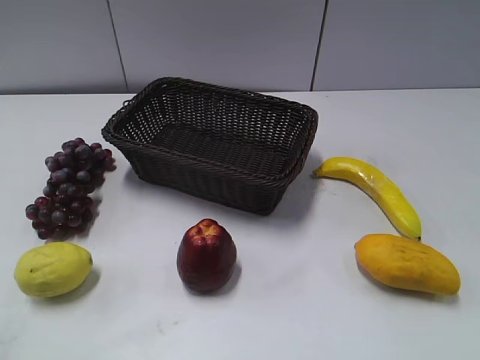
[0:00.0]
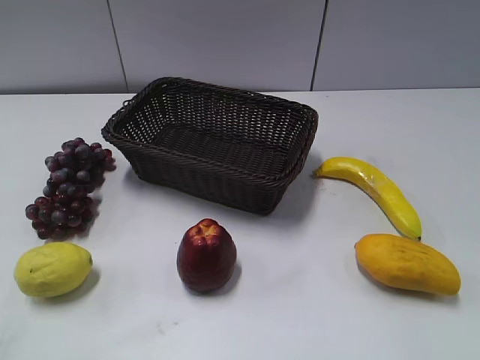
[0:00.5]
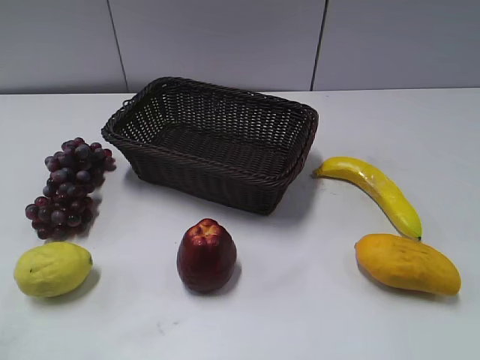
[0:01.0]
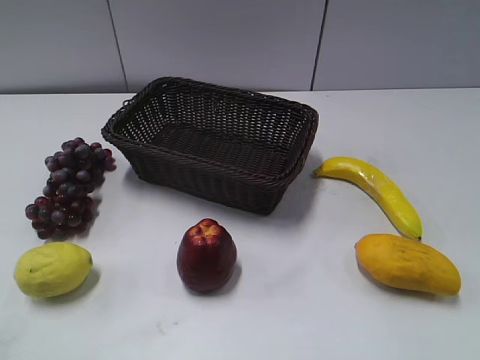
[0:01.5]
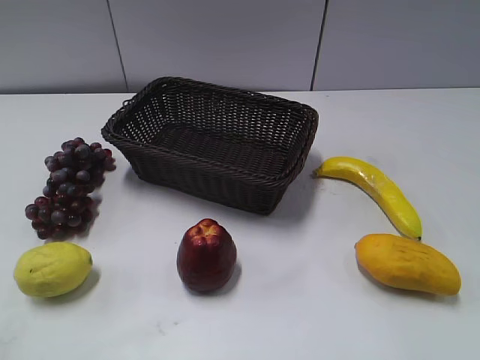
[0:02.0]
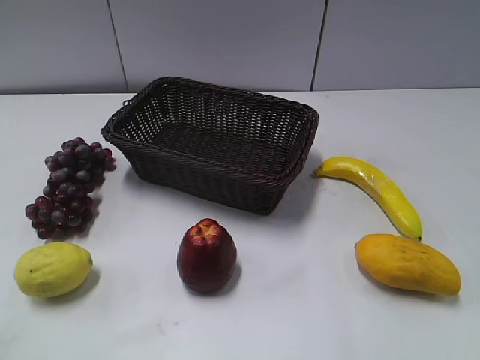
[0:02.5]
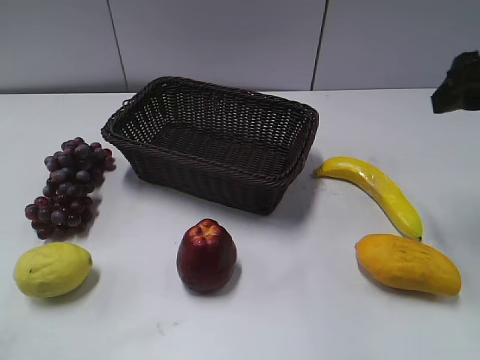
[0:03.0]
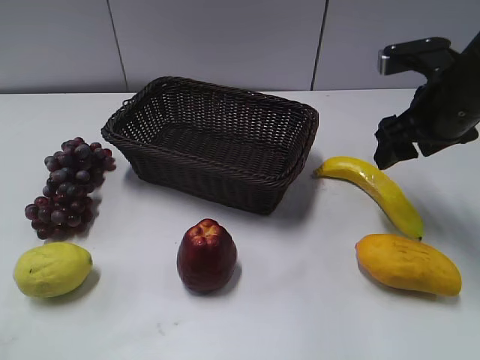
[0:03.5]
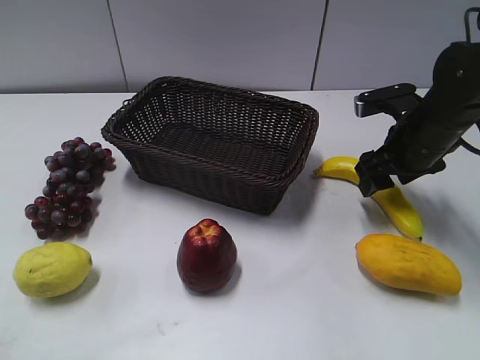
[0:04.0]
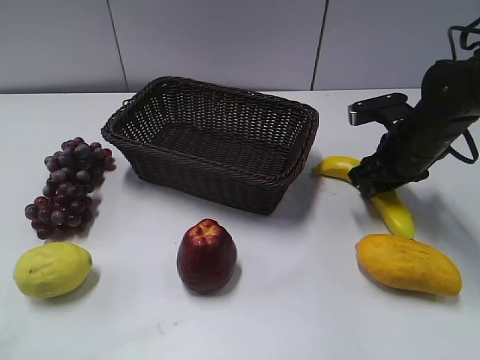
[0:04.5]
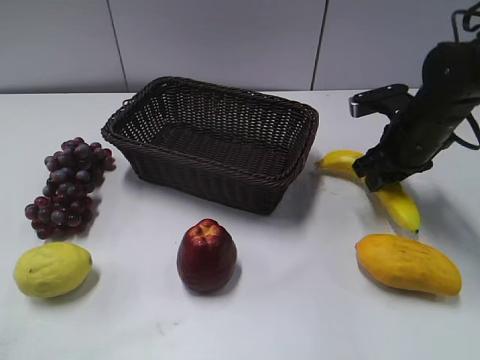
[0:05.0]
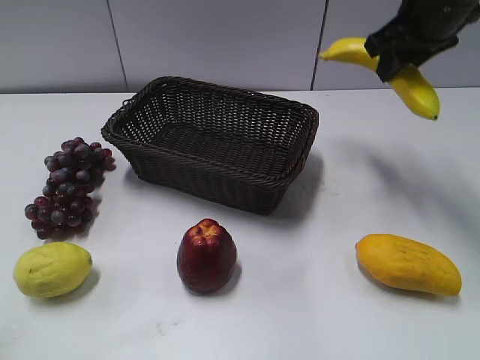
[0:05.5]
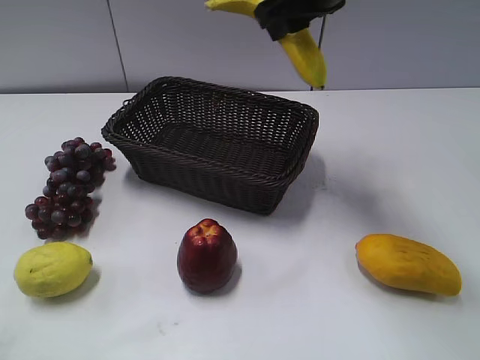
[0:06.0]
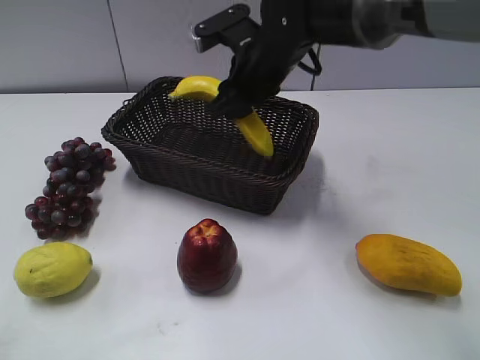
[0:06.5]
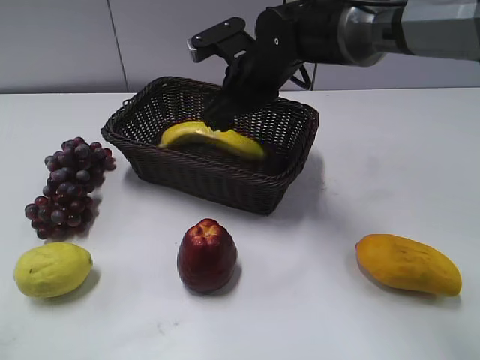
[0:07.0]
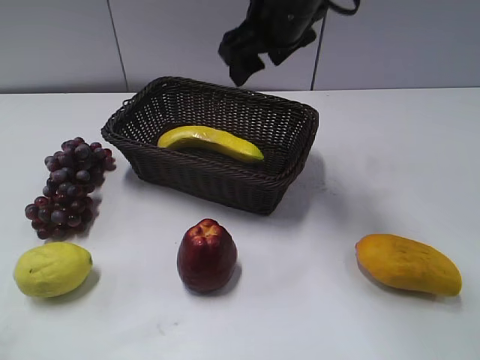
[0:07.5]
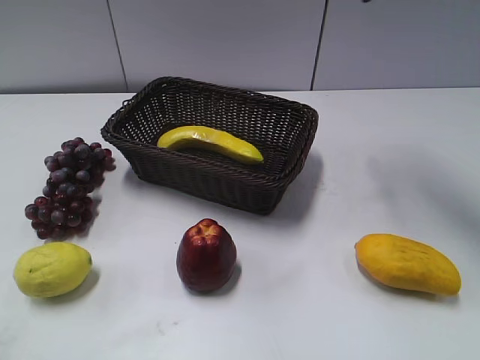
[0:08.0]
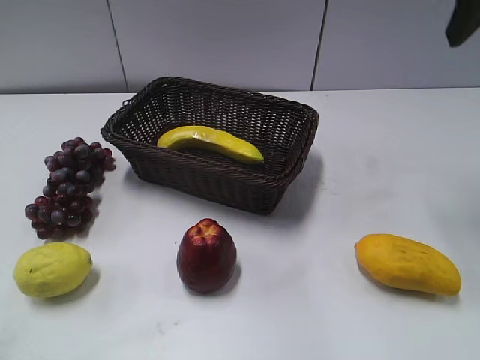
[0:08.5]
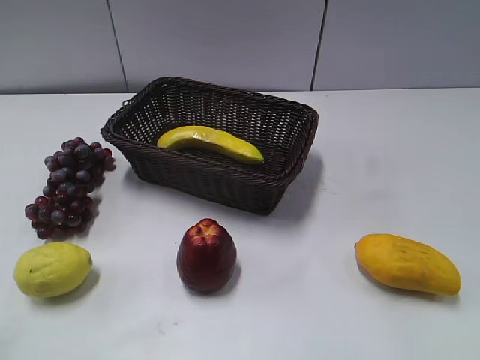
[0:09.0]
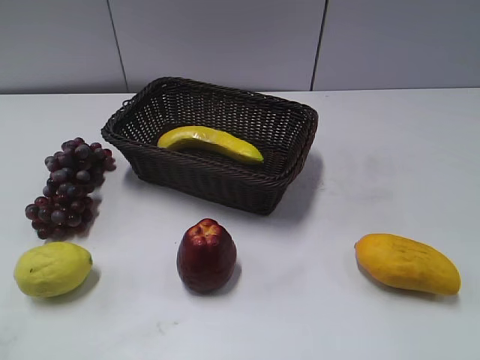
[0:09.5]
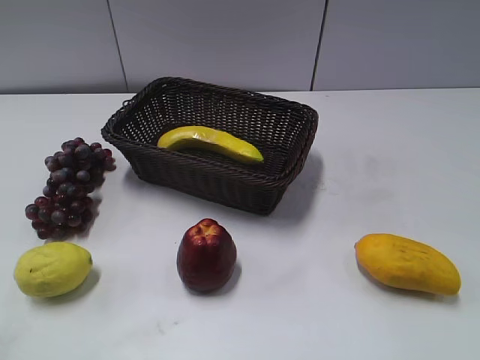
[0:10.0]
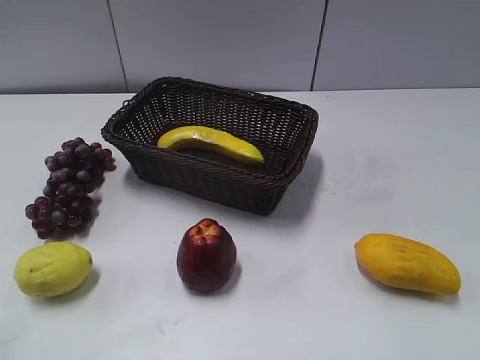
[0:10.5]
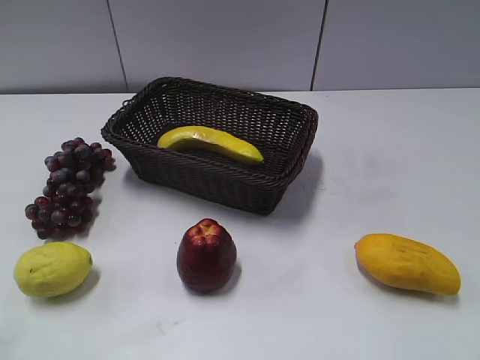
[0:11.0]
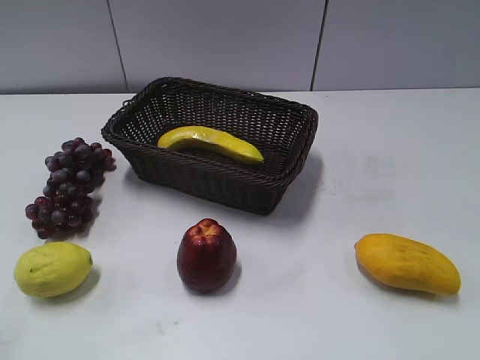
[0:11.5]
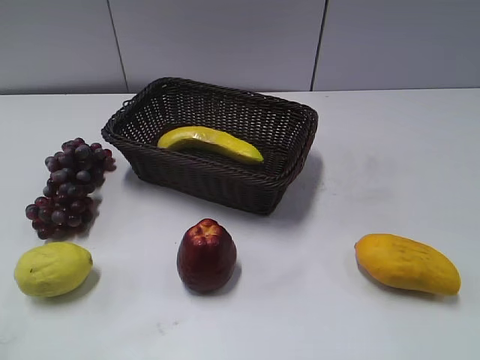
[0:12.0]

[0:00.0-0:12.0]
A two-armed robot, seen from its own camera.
Step, 0:03.0 to 0:04.5: Grasp the banana with right gripper.
Step, 0:05.0 to 0:07.0: Place the banana in the basket with right gripper.
0:02.0 to 0:04.0: The right gripper heads forward and downward, covering about 35 cm.
0:04.0 to 0:06.0: The right gripper travels upward and to the left by roughly 20 cm, and closes.
0:06.0 to 0:08.0: The right gripper shifts about 15 cm to the right and upward, and opens its fingers.
0:08.0 to 0:10.0: The right gripper is displaced backward by approximately 35 cm.

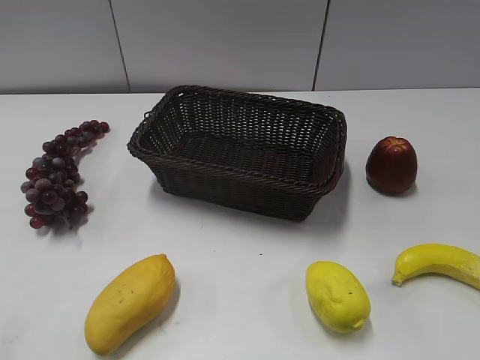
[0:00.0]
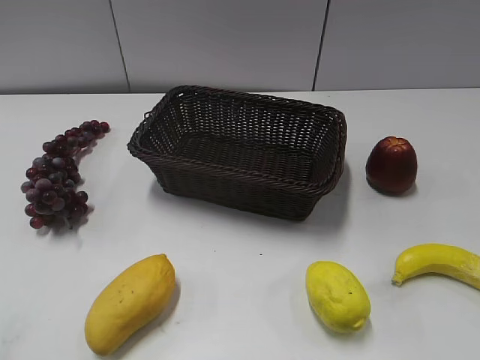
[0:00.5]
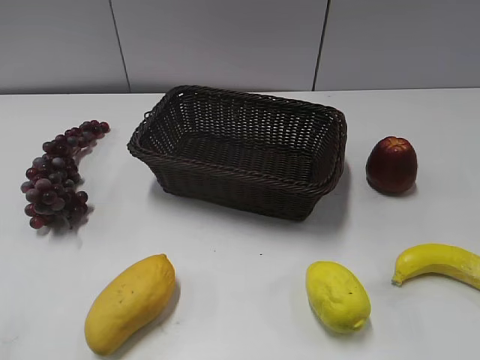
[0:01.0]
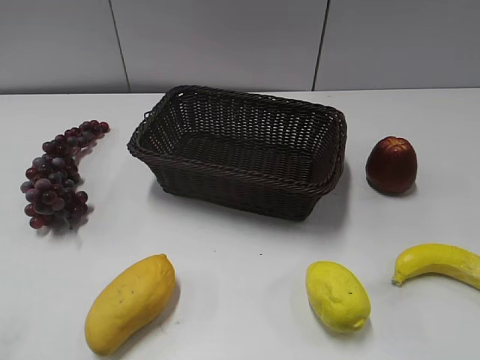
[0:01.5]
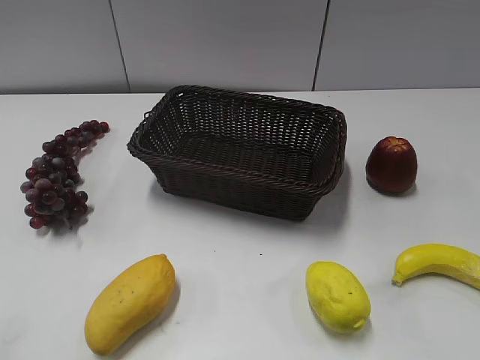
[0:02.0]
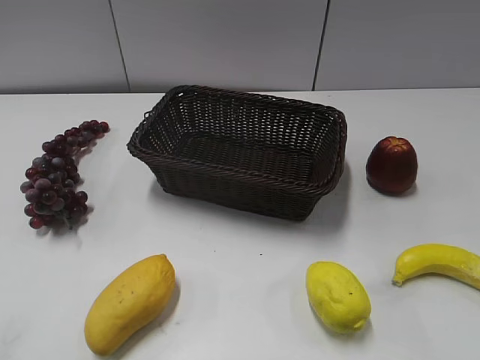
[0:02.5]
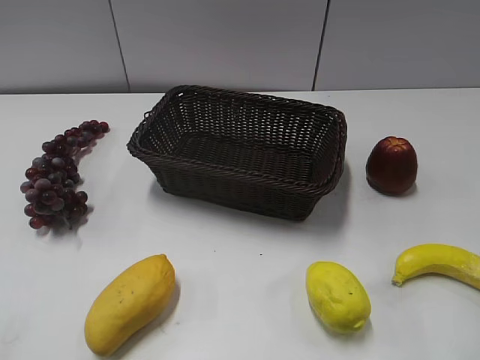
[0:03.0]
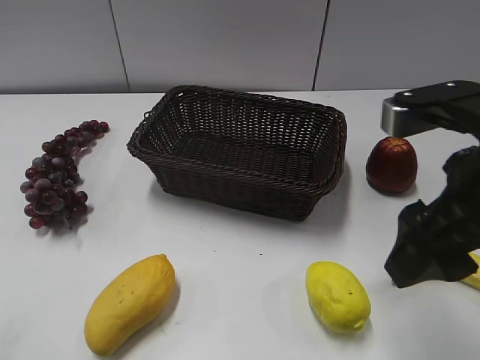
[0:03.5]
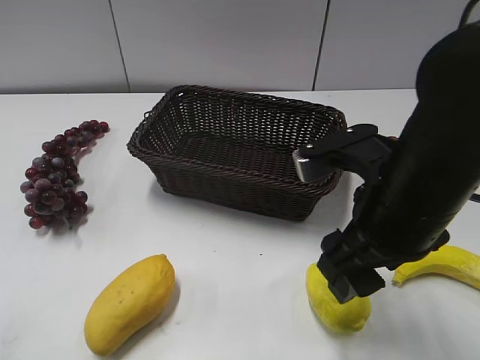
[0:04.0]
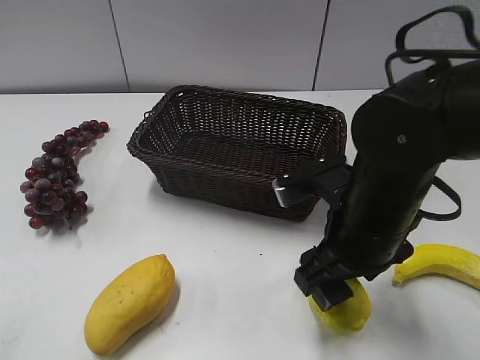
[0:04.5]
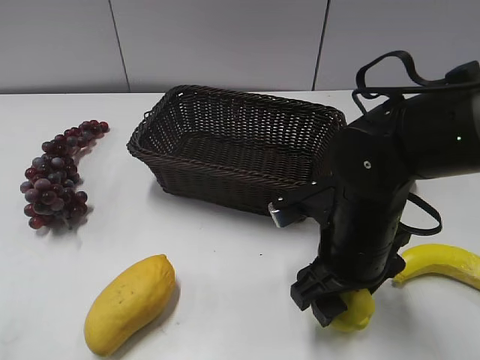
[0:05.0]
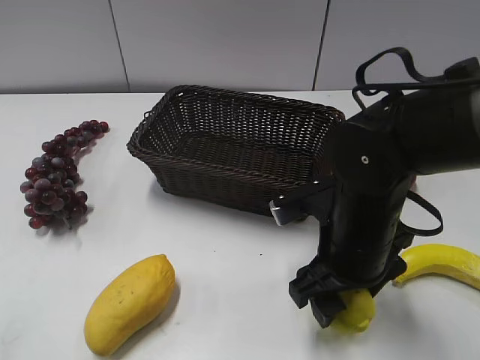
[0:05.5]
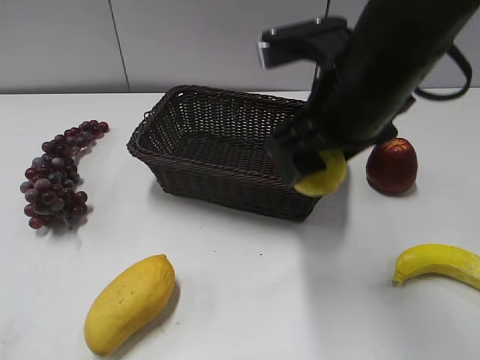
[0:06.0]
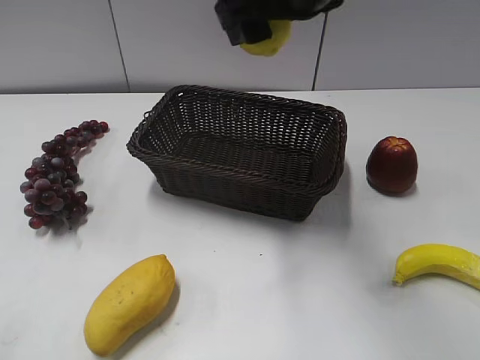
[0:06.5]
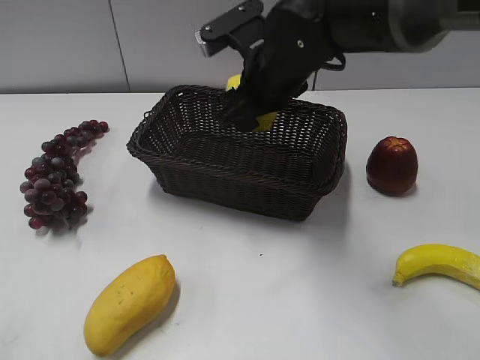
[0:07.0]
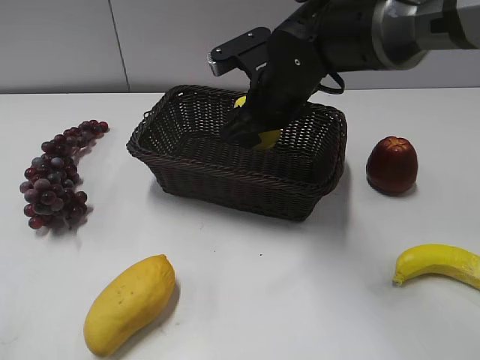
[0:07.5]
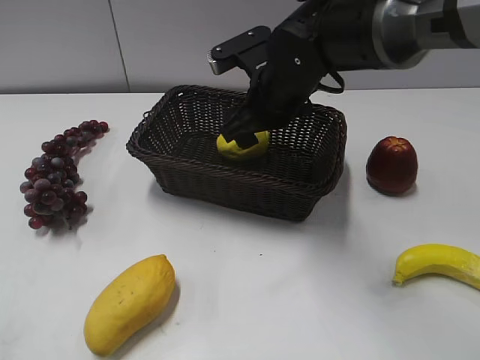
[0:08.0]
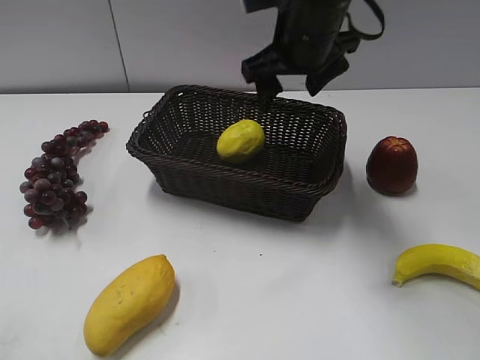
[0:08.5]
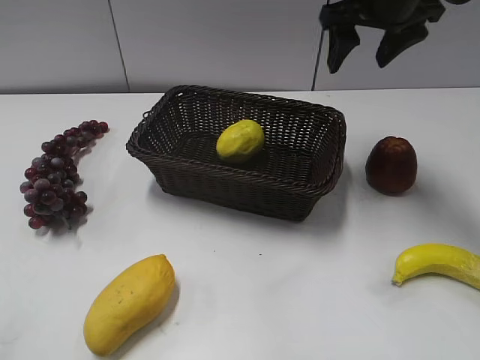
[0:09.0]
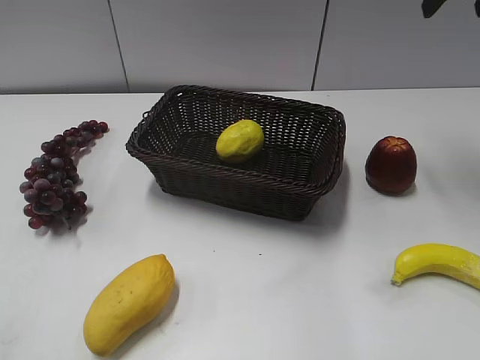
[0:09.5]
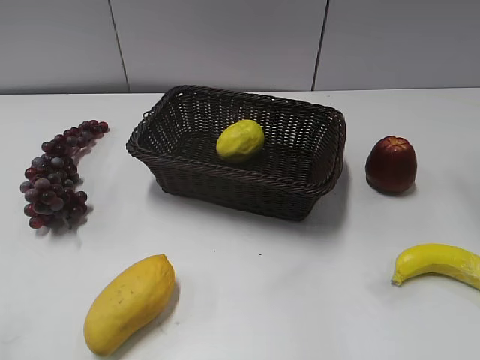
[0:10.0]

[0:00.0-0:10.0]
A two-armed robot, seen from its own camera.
Step, 0:03.5 to 0:05.0: Grasp the lemon with right gripper.
Step, 0:05.5 to 0:07.5: Place the lemon in the basket with right gripper.
0:02.0 to 0:04.0: The right gripper shifts approximately 25 cm to the left, forward and downward.
0:04.0 to 0:06.0: The right gripper heads upward and forward, covering roughly 10 cm.
0:06.0 to 0:08.0: The right gripper shifts about 15 cm forward and downward, and opens.
0:08.0 to 0:10.0: The right gripper moves to the right and upward, roughly 30 cm, and closes its fingers.

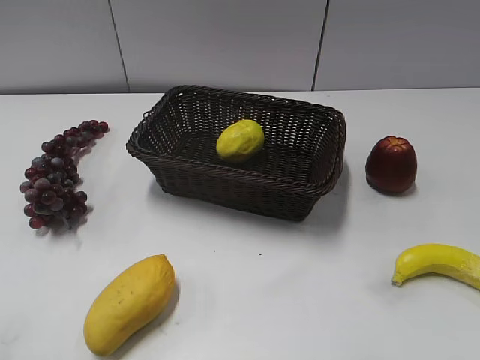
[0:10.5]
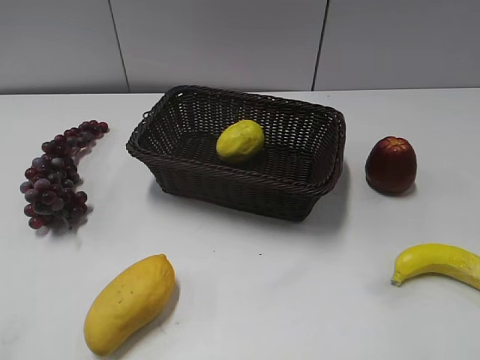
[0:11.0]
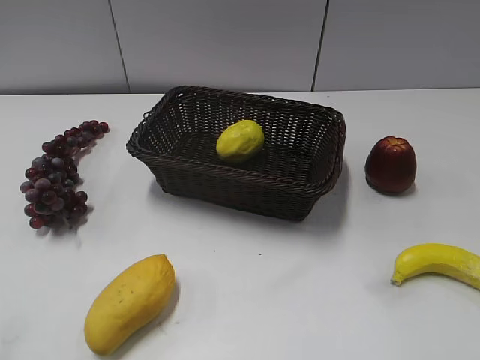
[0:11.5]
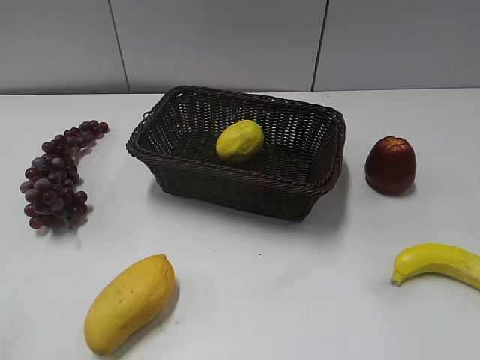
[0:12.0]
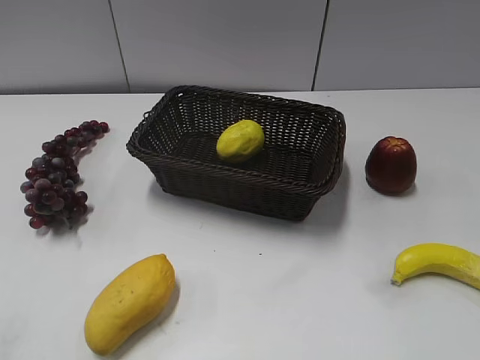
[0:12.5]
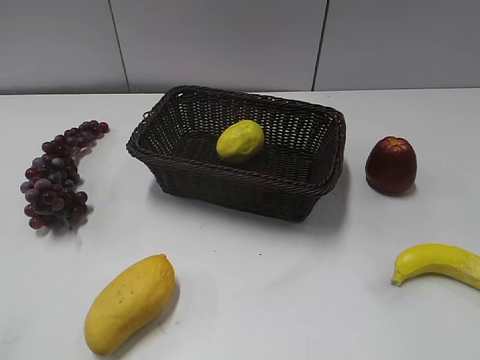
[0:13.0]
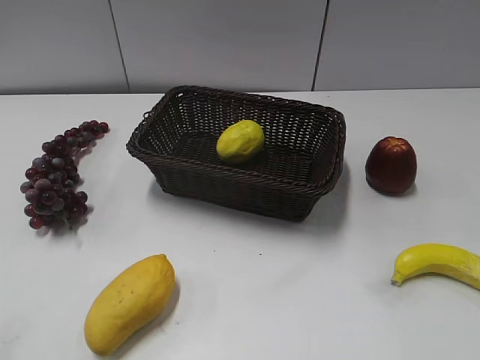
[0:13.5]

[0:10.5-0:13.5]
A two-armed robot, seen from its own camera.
0:12.0 to 0:13.5: Neither gripper changes place.
